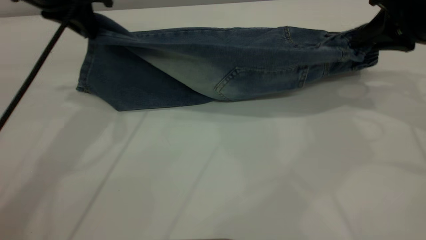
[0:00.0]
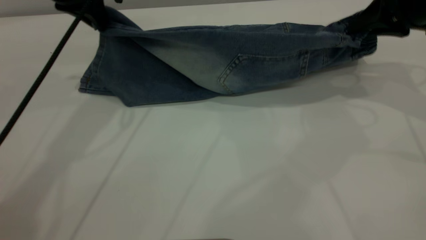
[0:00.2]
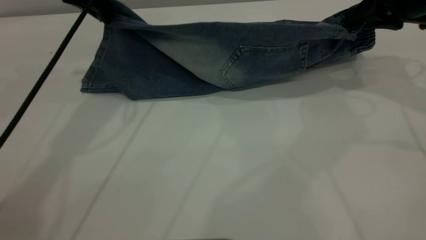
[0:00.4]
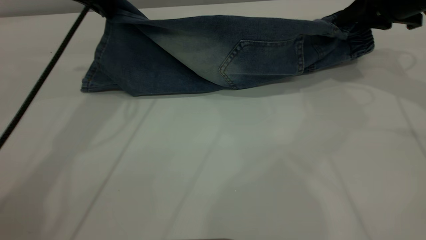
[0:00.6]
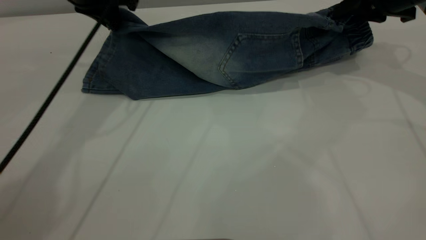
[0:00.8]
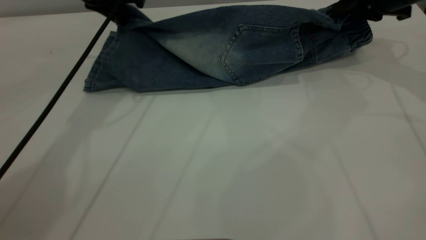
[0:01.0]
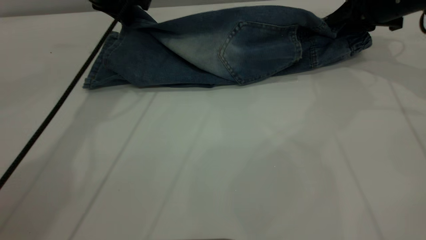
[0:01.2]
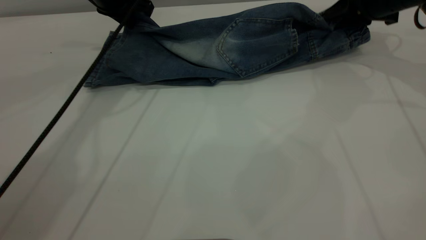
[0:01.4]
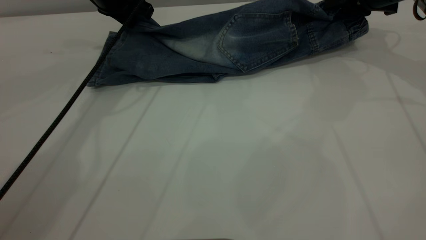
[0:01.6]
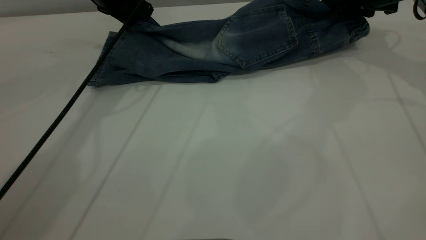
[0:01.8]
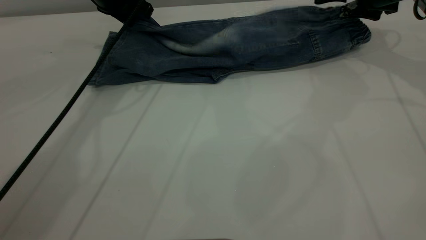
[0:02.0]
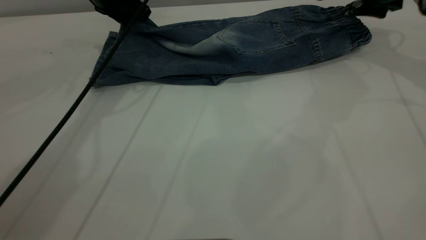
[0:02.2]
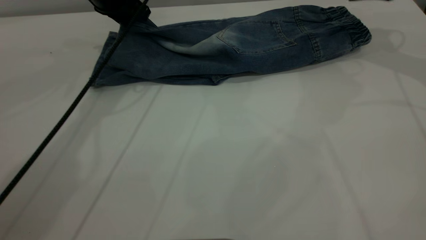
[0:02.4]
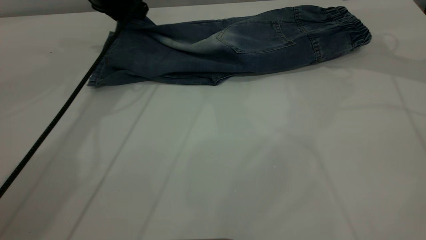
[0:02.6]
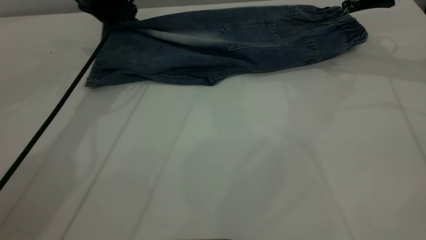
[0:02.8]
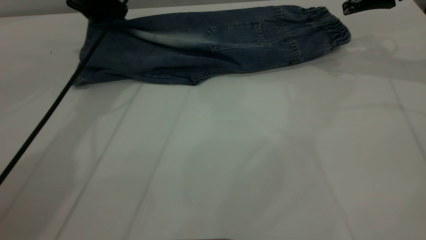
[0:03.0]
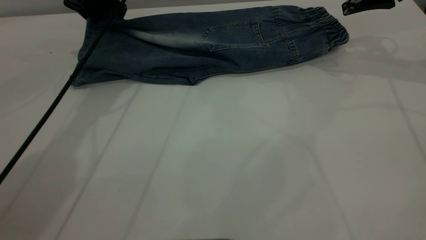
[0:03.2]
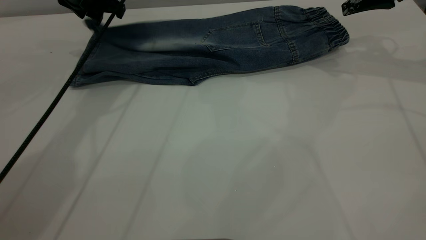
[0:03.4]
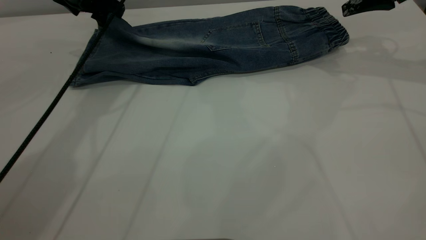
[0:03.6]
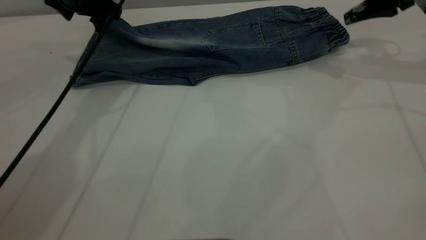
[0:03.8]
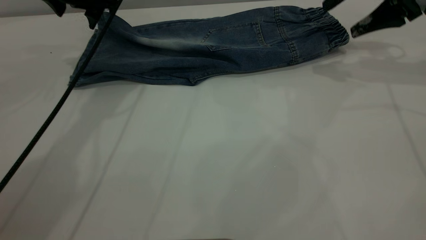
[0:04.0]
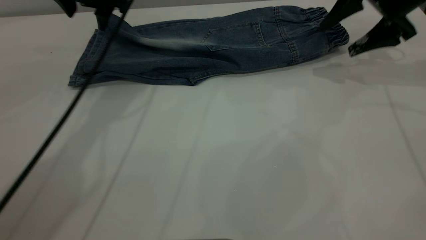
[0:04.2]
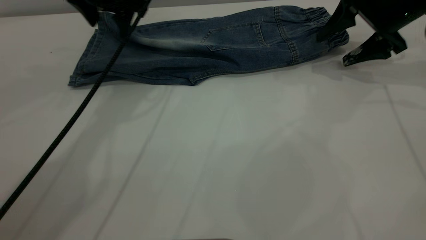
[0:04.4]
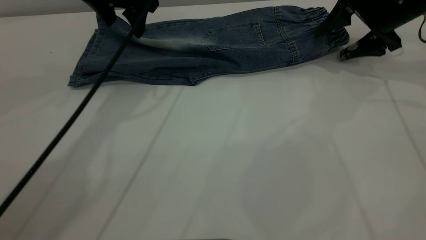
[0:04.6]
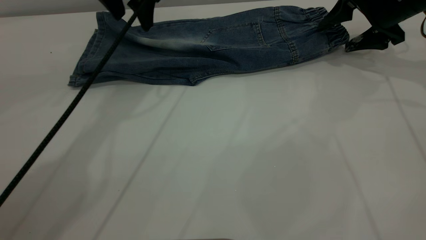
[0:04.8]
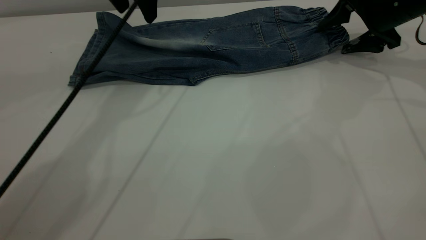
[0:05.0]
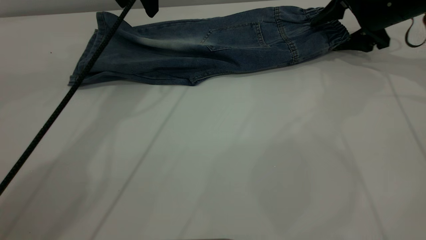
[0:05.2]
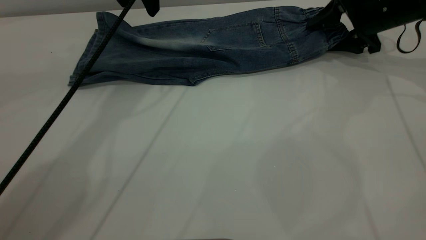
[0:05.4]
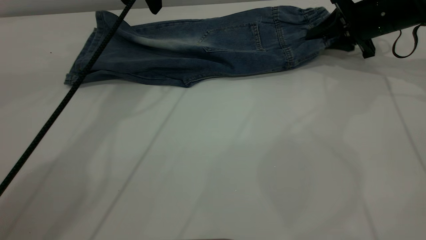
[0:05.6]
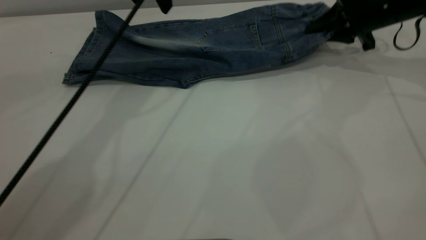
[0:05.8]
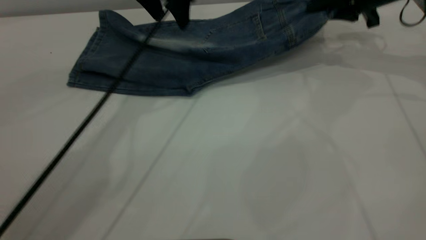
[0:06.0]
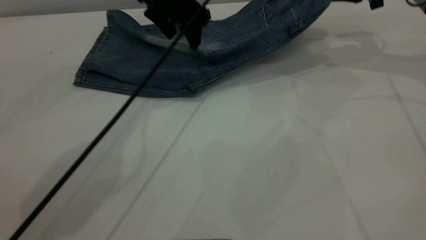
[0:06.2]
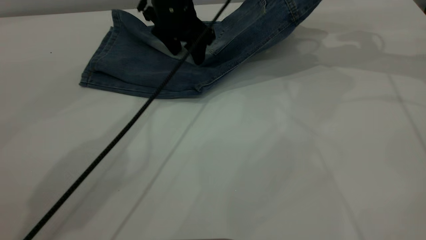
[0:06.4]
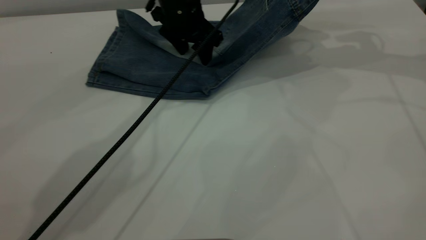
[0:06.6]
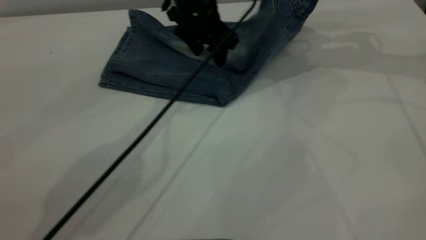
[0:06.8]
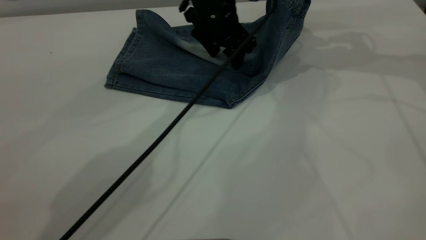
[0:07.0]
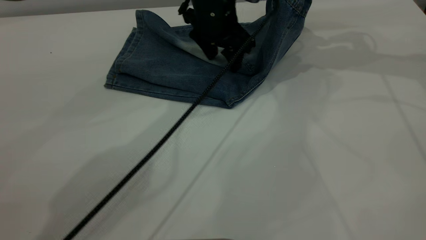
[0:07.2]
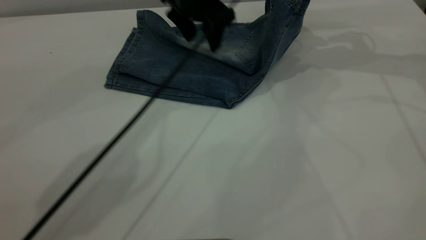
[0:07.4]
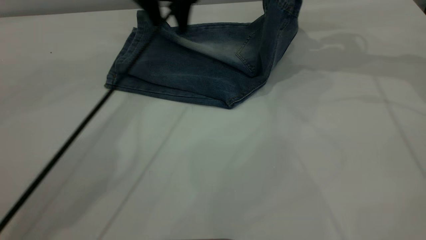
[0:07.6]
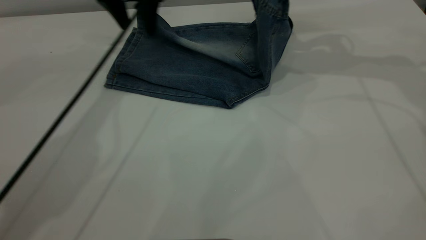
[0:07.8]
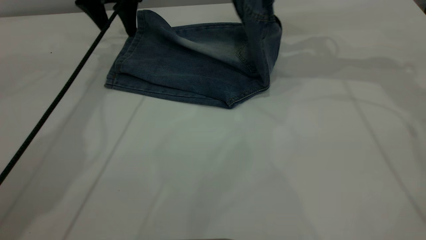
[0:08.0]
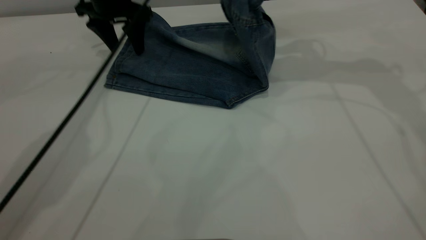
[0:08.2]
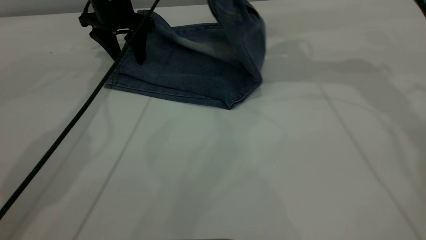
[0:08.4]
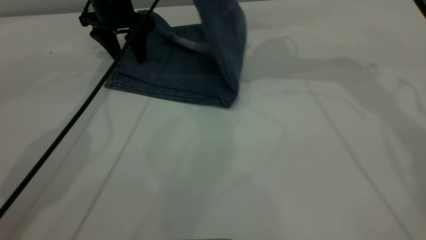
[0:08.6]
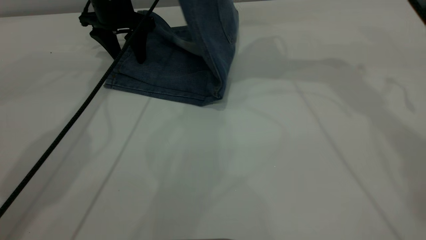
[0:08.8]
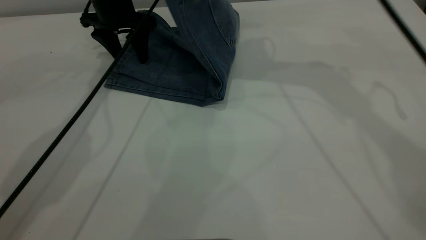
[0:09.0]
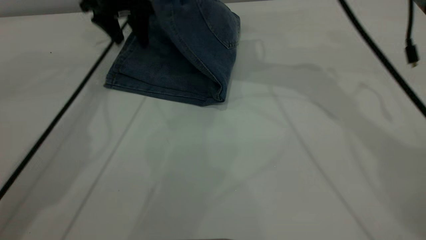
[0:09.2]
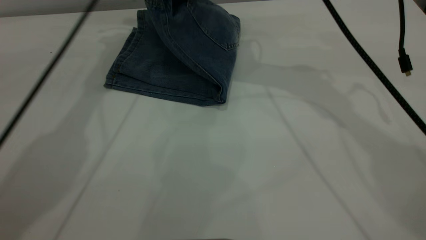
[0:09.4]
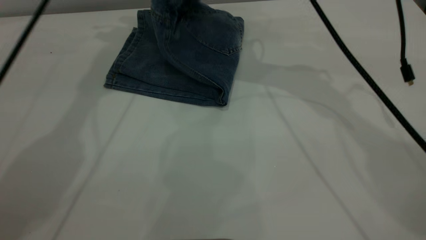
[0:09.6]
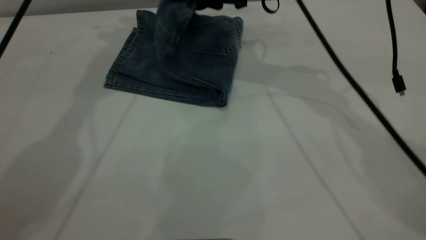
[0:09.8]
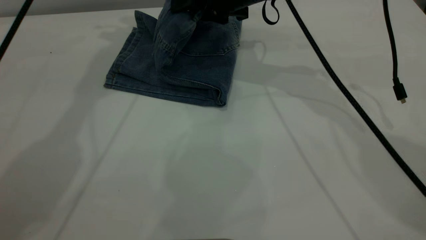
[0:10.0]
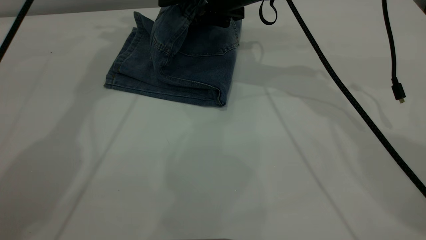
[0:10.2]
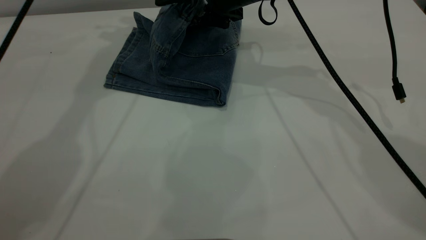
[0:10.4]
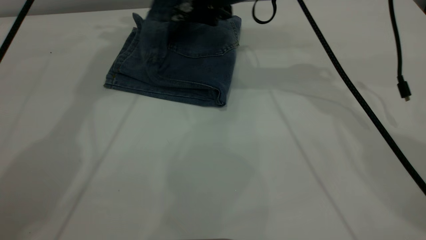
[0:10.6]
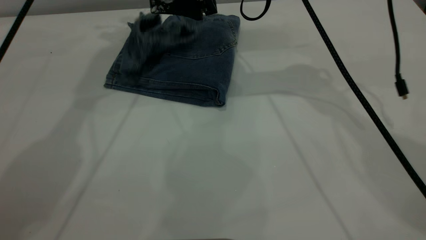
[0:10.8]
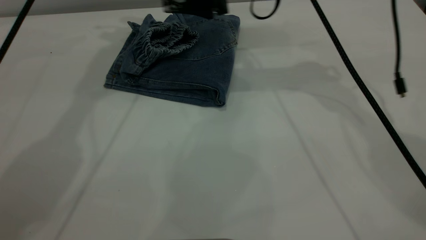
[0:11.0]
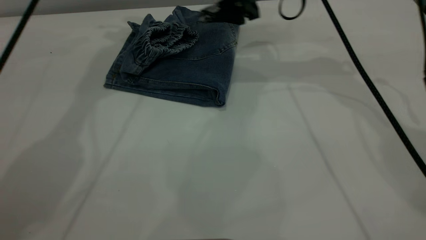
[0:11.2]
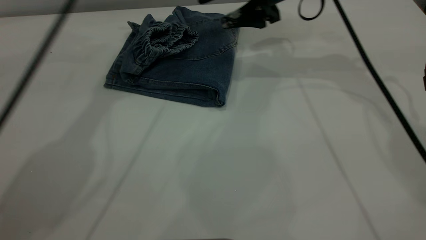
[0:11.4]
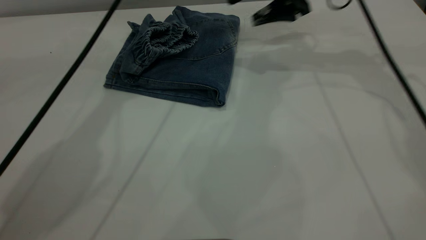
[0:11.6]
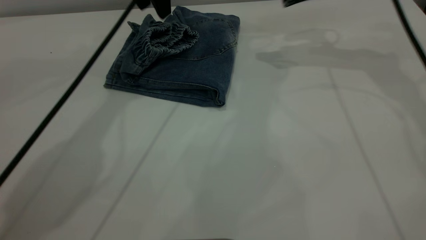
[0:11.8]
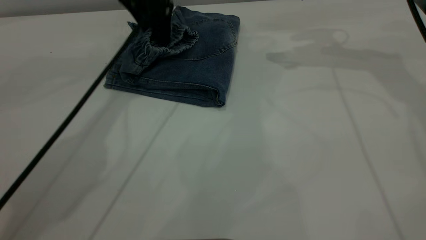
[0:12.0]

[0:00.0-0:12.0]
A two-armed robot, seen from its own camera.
Step, 0.0 to 3.8 s: Fold the bottom of the pants upward.
Step, 4.0 to 11.4 s: Fold your pants from right to left.
0.0 to 1.6 s: The right gripper is displaced forward by some 15 cm. The left gripper moves forward and downward, some 15 cm.
1.6 to 3.0 s: The right gripper moves upward, about 5 cm, and opens its fingers.
3.0 to 4.4 s: The right gripper travels downward by roughly 10 cm; the left gripper travels to the right by roughly 5 cm, and opens.
4.4 to 6.0 s: The left gripper shifts approximately 5 cm to the right; the right gripper closes up.
6.0 to 7.6 s: The left gripper goes to the right and returns, some 10 cm each way; the right gripper travels upward by about 5 cm.
7.6 to 9.0 s: The right gripper is displaced to the left by about 15 cm; the left gripper goes roughly 10 cm to the left and downward.
9.0 to 10.4 s: The right gripper travels downward by about 10 cm, and opens. Meanwhile the left gripper moves upward, some 20 cm.
10.4 to 12.0 s: The left gripper heads downward, covering about 20 cm; the right gripper heads to the right and upward, covering some 15 cm.

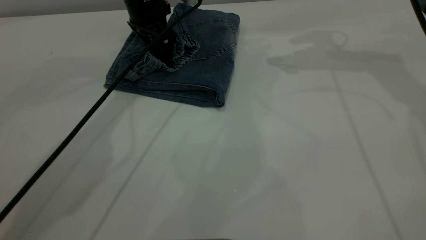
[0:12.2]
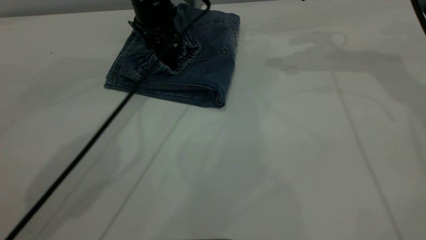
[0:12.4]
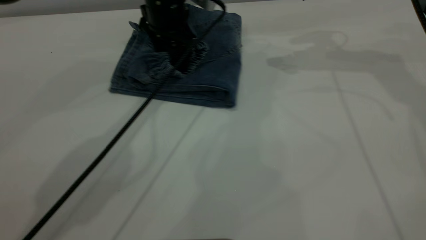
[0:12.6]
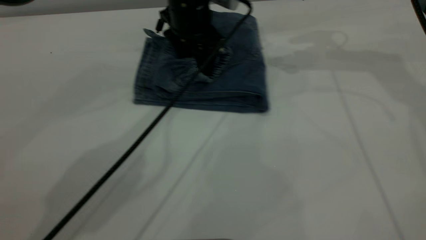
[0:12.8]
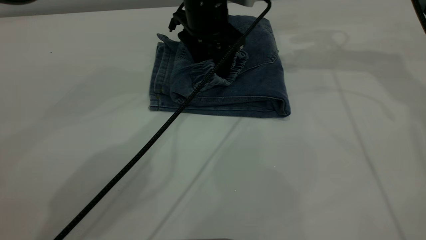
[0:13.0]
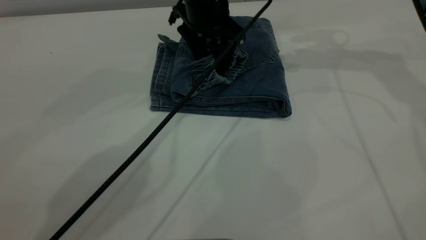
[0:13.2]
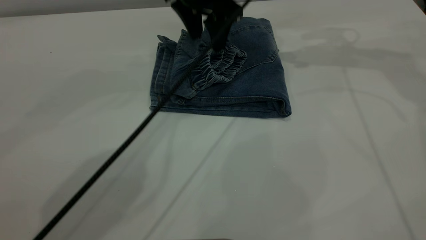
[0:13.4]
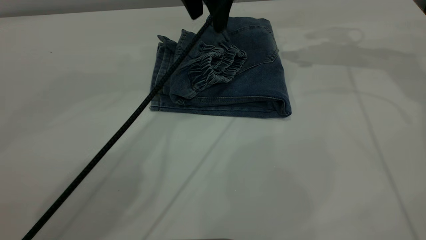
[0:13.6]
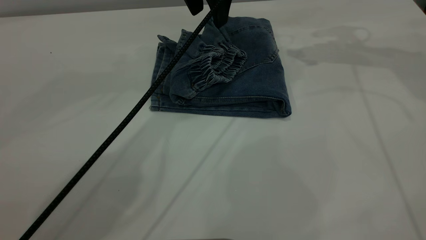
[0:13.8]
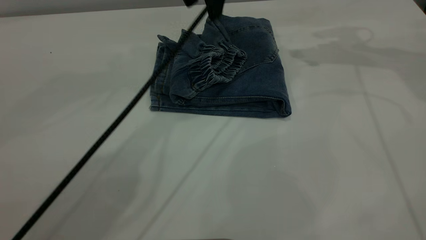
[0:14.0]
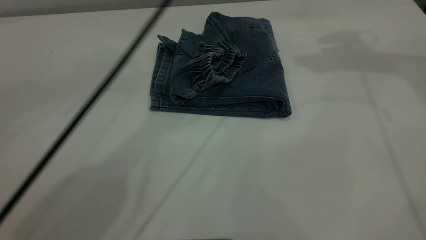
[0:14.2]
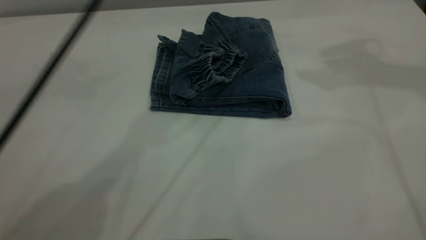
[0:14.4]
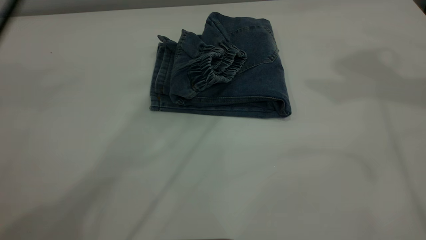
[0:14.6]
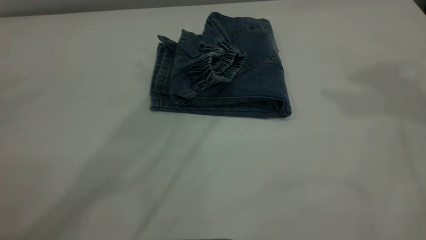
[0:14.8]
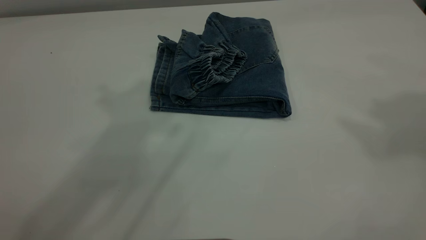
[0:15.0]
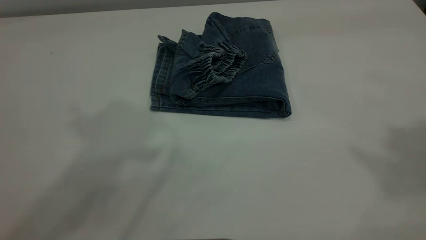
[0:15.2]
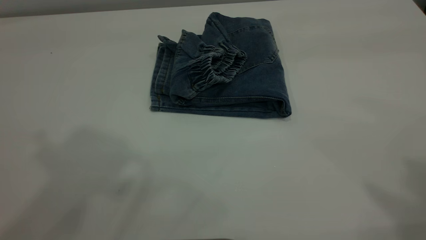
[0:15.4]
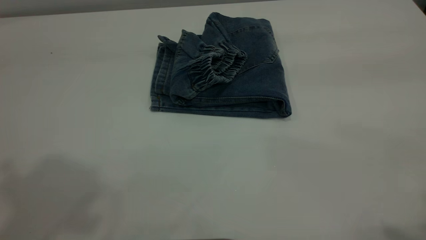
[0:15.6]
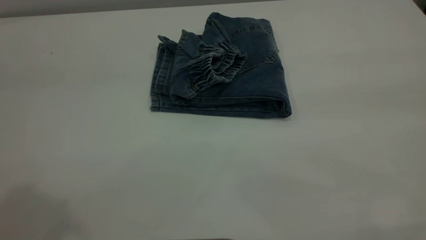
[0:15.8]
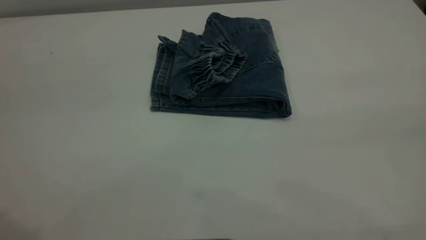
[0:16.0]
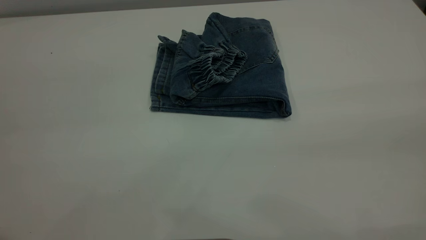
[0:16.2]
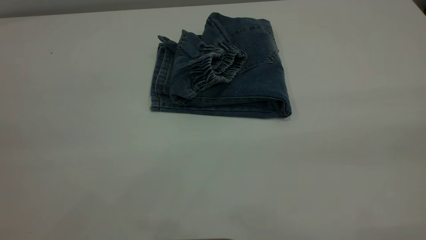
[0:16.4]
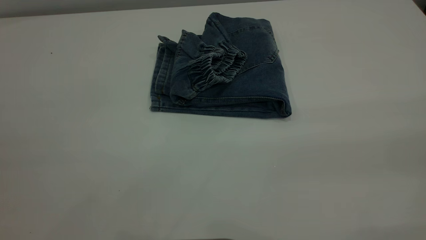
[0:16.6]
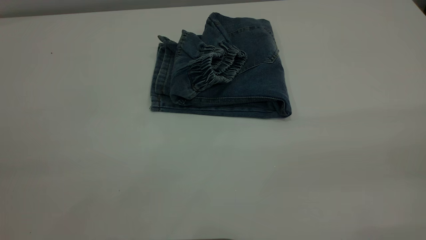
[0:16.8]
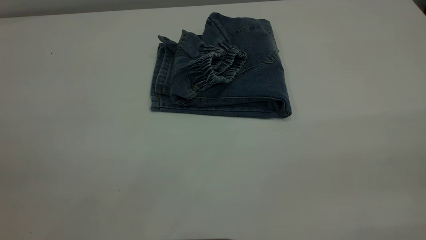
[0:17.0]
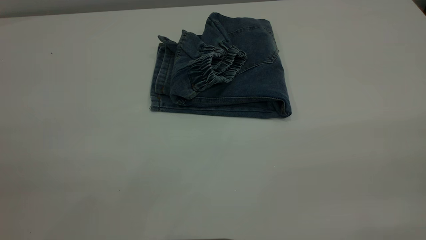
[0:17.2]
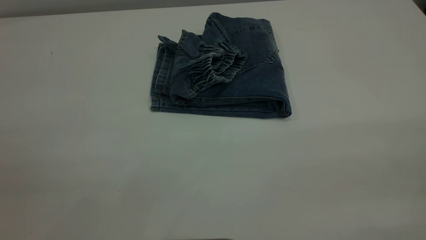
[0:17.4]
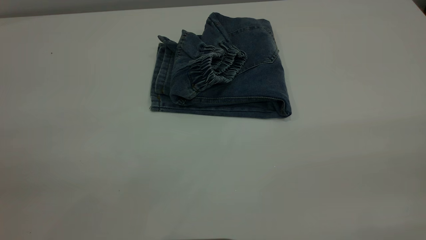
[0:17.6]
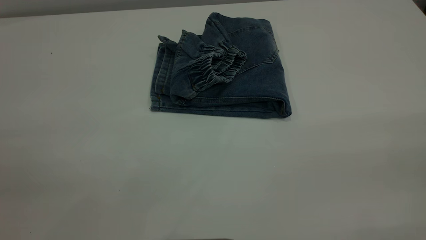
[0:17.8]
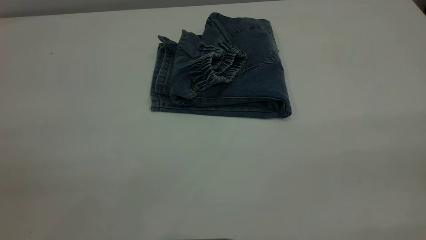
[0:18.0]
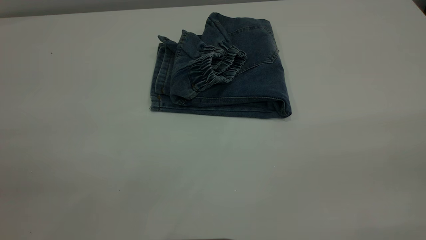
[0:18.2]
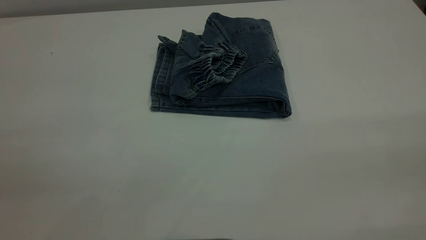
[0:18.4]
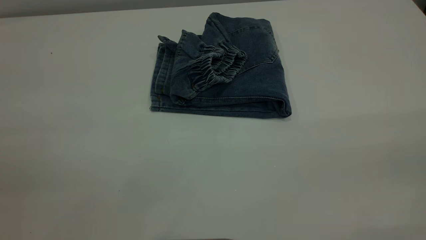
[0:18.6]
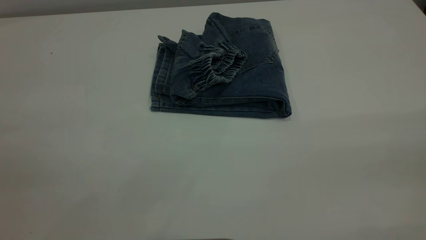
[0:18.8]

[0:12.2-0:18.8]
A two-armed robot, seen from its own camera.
12.2 to 13.8 s: The left gripper goes some 15 cm upward and to the right.
13.8 to 15.4 s: The left gripper shifts about 40 cm upward, backward and to the left. The right gripper goes roughly 40 cm backward and upward.
